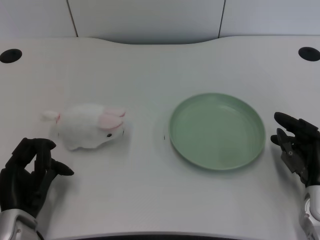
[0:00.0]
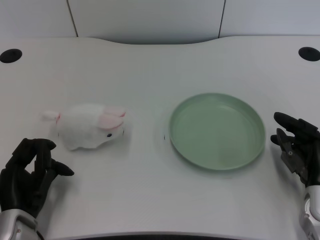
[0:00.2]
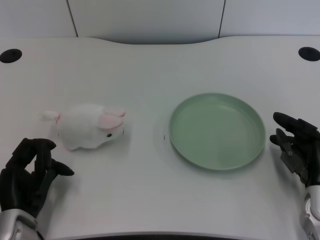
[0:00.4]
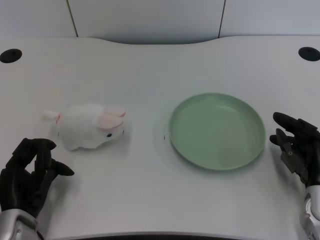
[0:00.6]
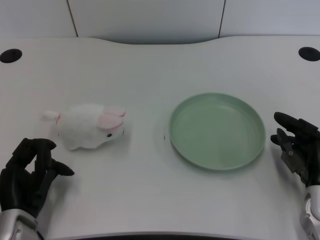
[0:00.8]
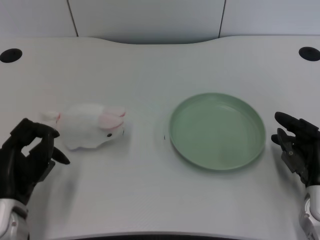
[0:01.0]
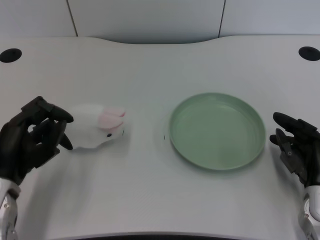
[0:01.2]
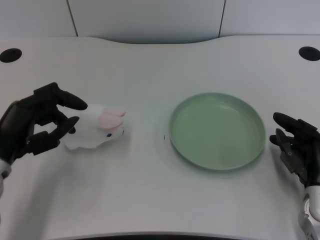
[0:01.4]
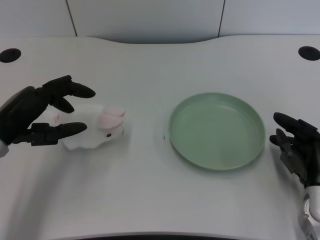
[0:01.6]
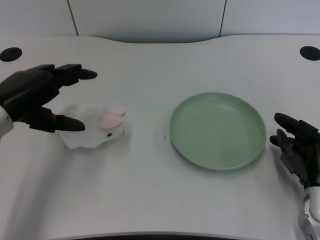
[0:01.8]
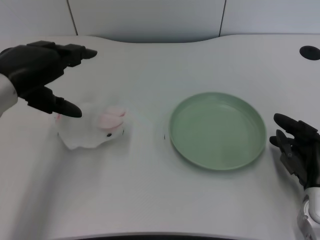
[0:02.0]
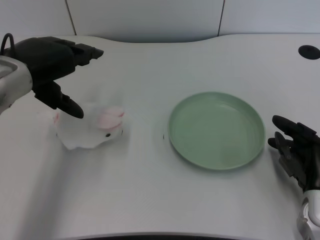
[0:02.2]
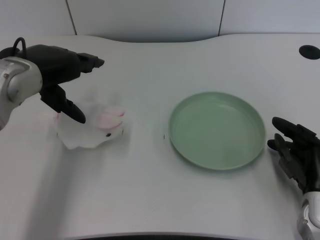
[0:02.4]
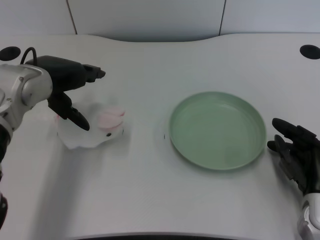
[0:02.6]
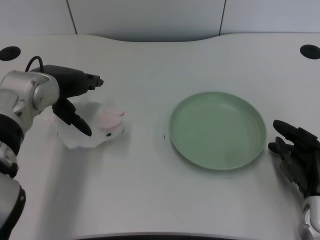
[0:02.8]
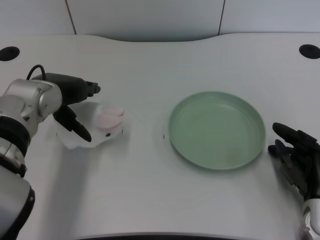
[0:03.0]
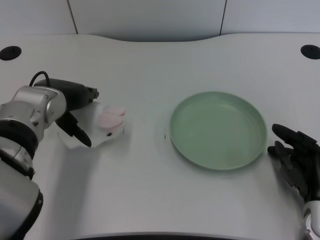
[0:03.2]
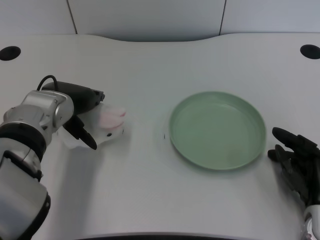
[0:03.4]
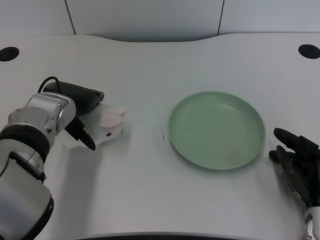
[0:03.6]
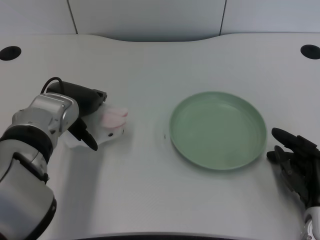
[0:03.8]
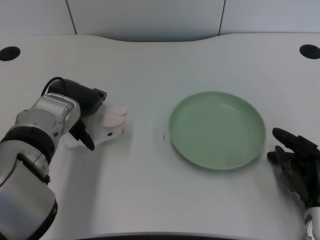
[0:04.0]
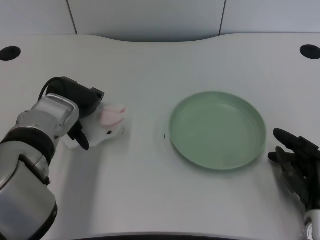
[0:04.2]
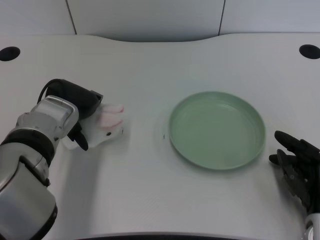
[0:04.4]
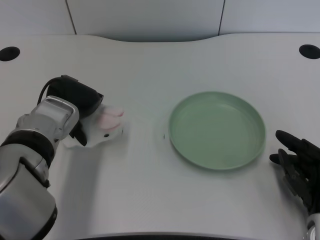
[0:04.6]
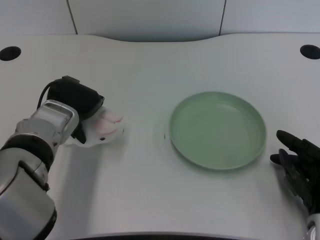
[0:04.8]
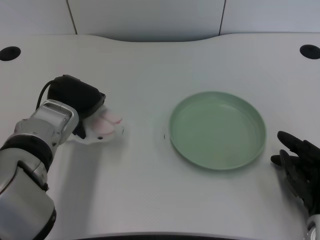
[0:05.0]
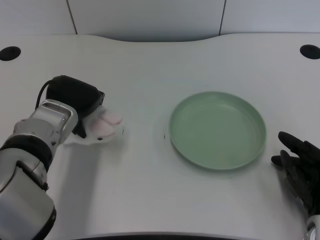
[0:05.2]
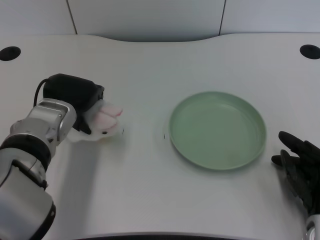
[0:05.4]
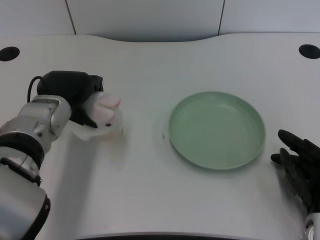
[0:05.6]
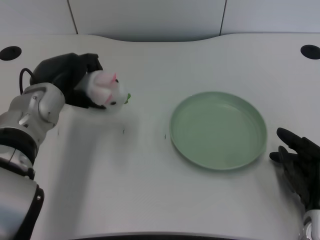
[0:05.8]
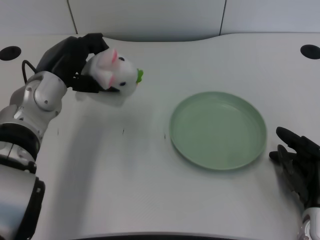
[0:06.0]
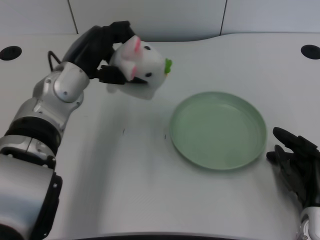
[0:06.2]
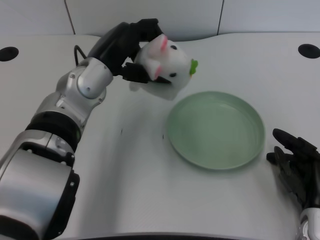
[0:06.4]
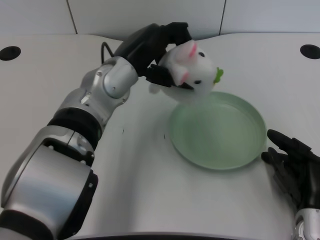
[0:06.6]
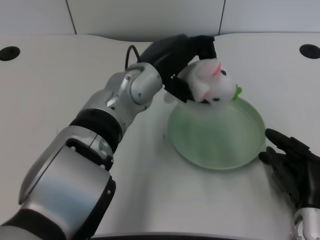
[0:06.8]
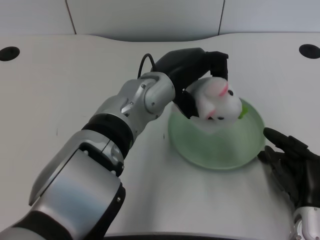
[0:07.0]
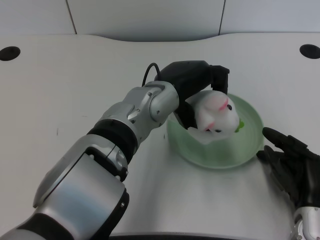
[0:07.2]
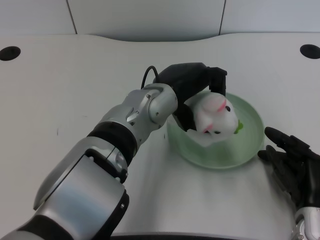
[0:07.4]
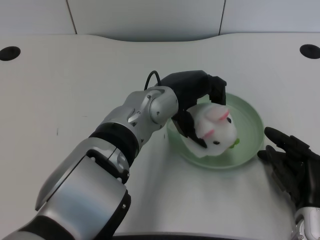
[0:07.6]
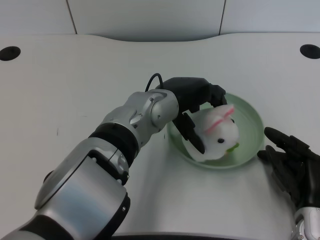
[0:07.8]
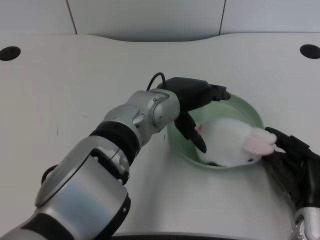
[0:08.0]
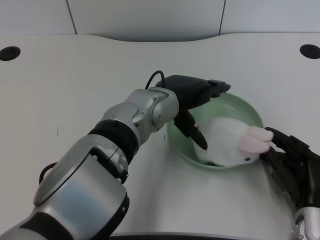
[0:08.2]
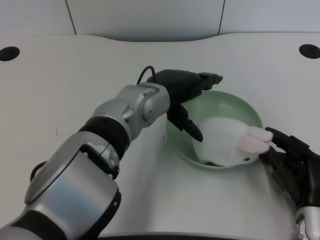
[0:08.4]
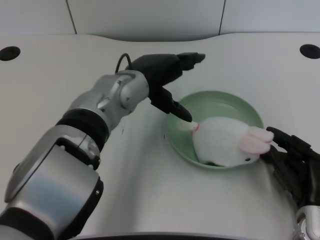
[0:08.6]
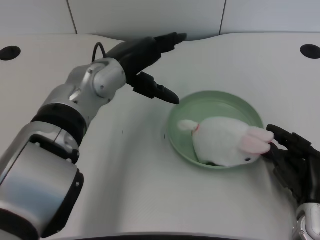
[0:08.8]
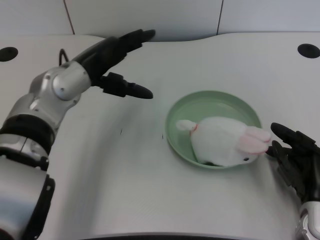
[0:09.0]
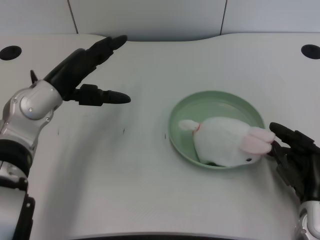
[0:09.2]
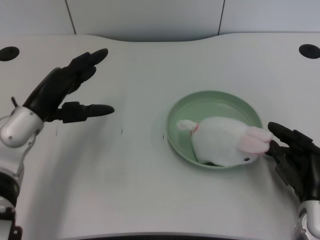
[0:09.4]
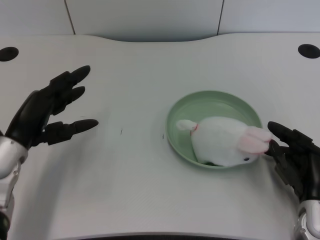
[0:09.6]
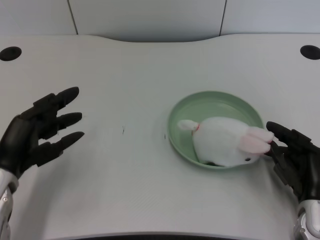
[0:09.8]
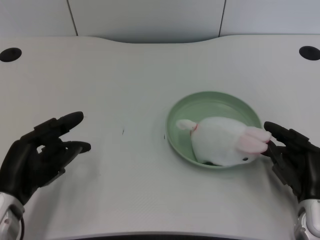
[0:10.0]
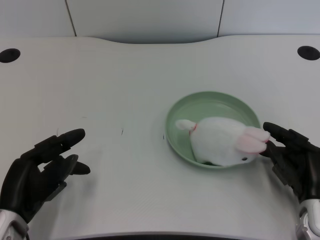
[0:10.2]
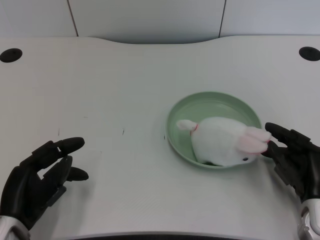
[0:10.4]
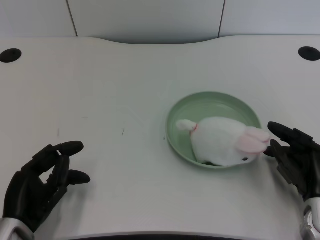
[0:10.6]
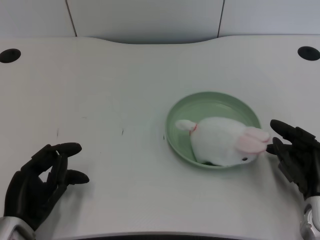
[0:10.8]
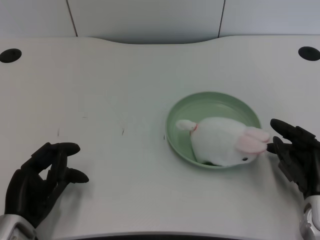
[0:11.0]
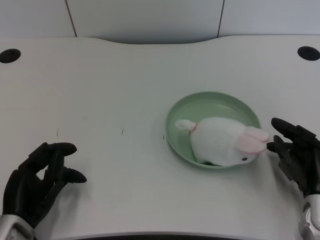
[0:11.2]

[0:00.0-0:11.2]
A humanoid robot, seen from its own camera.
Task of the whole recording: pick up the rabbit doll from the table and place it on the plate.
Step, 0:01.0 to 0:05.6: Grasp the rabbit doll with the left gripper.
Step, 0:06.0 to 0:07.8: Place the rabbit doll into the plate with the left gripper.
0:01.6 to 0:03.2: The left hand heads to the right and forward, covering roughly 10 cm.
0:03.2 to 0:04.8: The hands move only a little.
0:04.8 to 0:06.4: The left hand heads upward and to the right, covering approximately 10 cm.
0:06.4 to 0:08.0: The left hand travels to the right by approximately 10 cm.
0:08.0 to 0:09.6: The left hand heads to the left, covering some 20 cm.
0:09.6 to 0:11.2: The left hand heads backward and downward, covering approximately 10 cm.

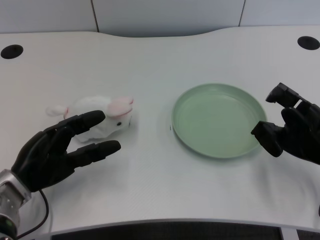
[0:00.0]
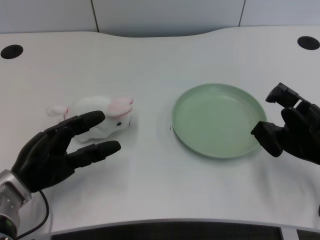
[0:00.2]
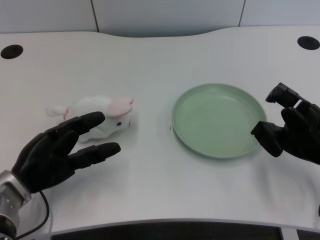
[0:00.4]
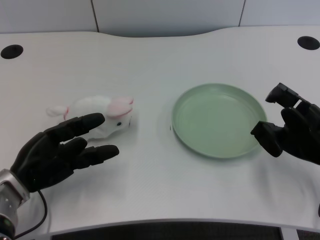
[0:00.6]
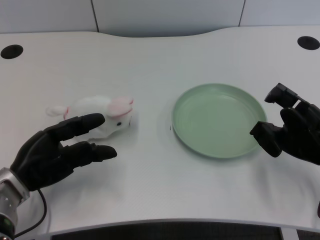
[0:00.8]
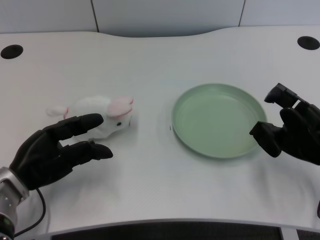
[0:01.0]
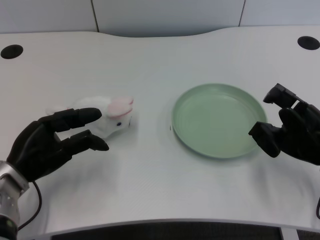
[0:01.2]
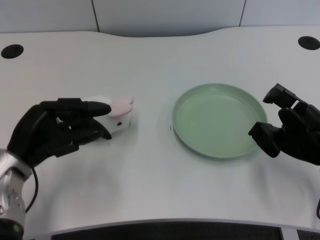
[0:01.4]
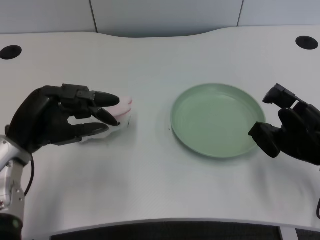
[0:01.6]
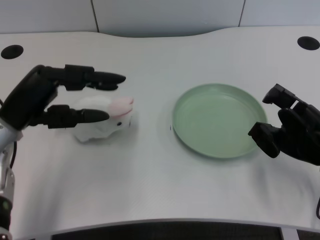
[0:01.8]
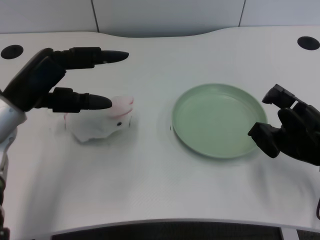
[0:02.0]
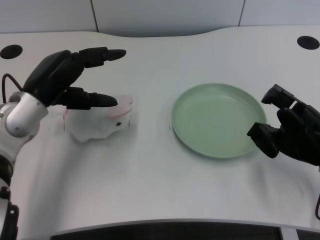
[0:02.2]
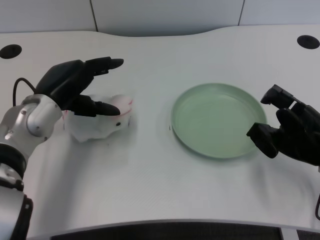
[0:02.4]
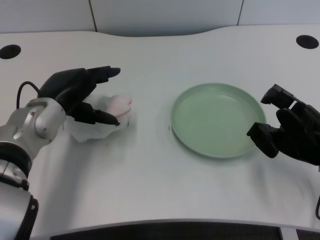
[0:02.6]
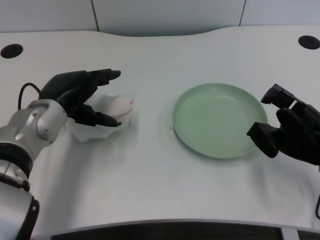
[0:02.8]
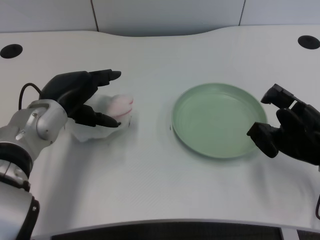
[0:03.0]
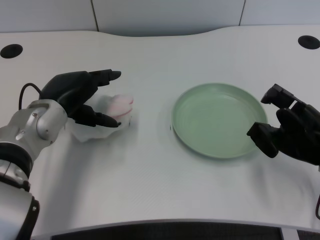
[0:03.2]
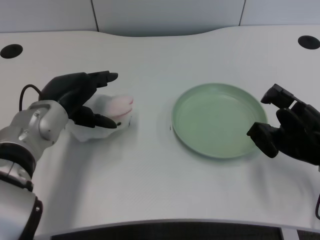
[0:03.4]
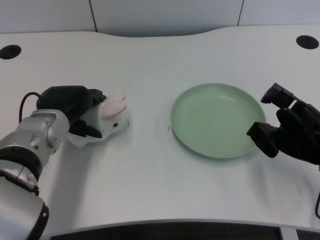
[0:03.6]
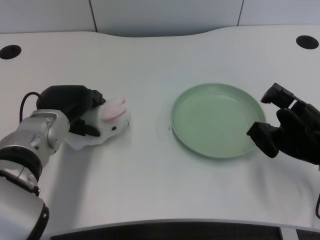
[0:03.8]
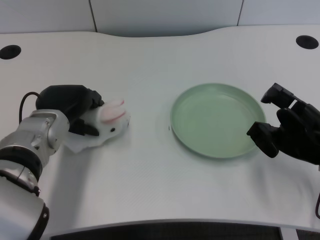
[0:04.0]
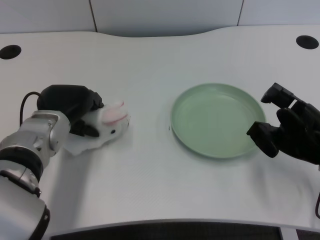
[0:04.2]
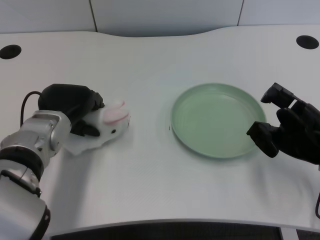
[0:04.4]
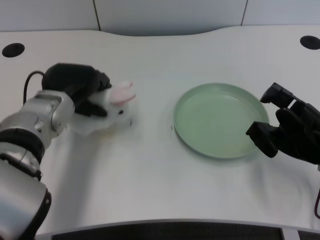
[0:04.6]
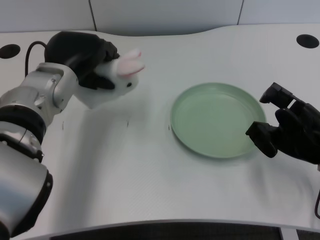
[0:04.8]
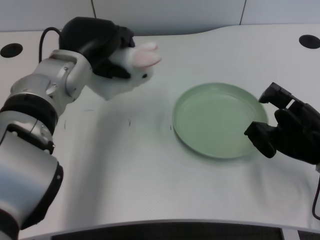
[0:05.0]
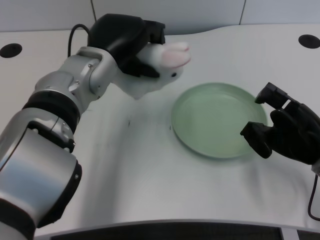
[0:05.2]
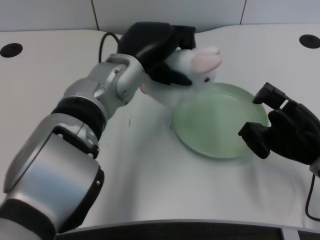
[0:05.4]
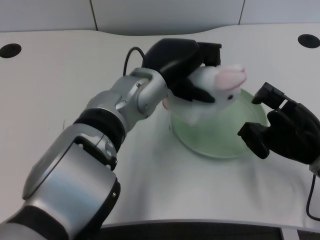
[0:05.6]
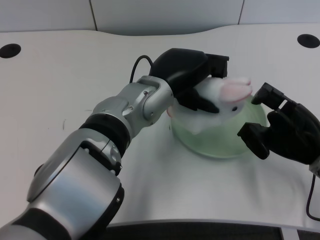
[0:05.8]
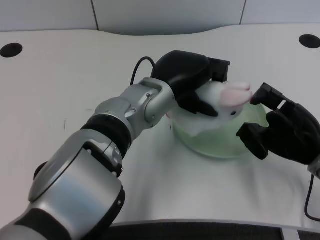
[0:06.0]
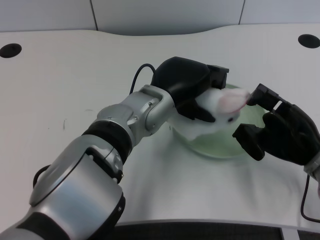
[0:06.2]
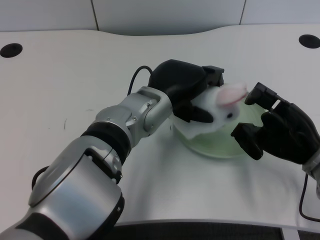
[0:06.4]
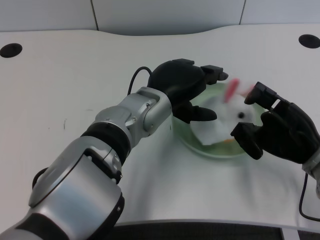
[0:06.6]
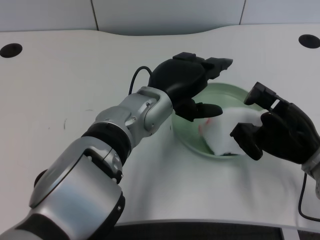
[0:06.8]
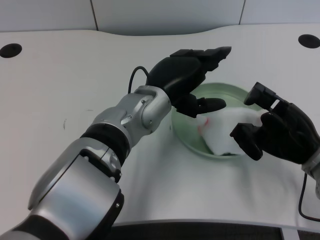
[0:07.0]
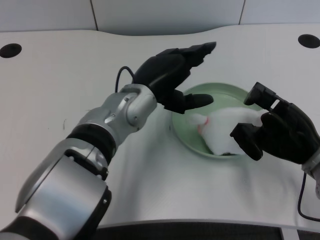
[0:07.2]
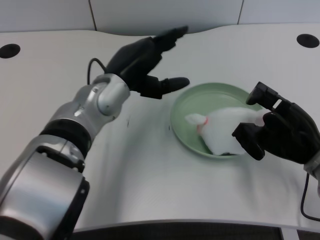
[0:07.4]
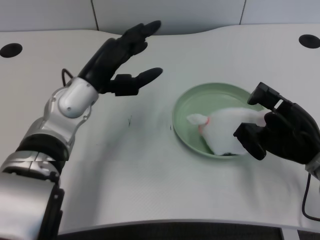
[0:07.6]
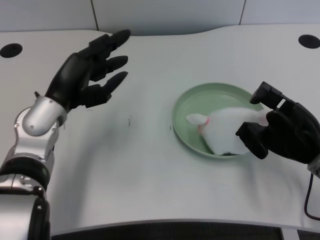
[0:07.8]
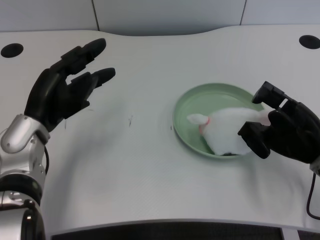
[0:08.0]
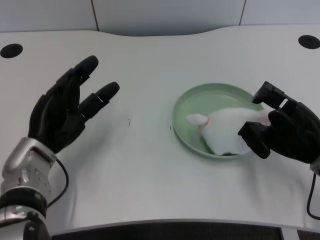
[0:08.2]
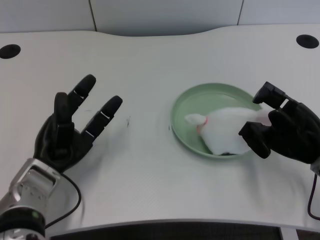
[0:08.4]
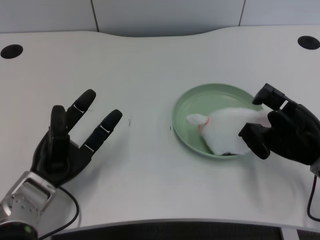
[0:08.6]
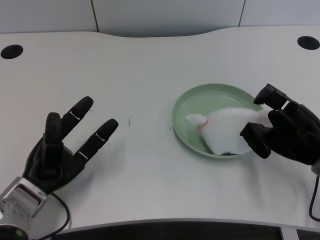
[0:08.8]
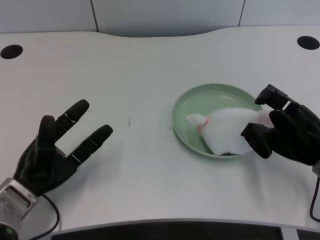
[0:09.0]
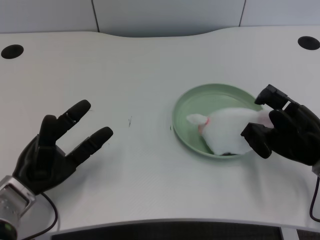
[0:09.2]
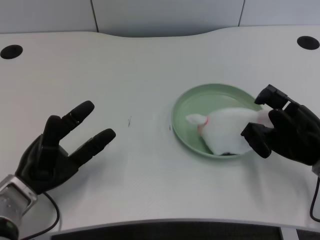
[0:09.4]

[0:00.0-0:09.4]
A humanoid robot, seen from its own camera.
Task of the whole recording: pick up the rabbit doll from the table and place it on the plate.
Step, 0:00.8 to 0:04.6: Grasp the rabbit doll with the left gripper.
Step, 0:04.8 to 0:06.8: Place the rabbit doll into the plate with the left gripper.
0:01.6 to 0:03.2: The left hand goes approximately 10 cm to the right and forward.
0:03.2 to 0:04.8: The left hand ends up approximately 5 cm from where it was.
0:04.8 to 0:06.2: The left hand heads to the right, covering roughly 15 cm.
0:06.2 to 0:07.8: The left hand travels to the left by roughly 15 cm.
0:07.8 to 0:09.4: The left hand shifts some 15 cm downward, backward and to the left.

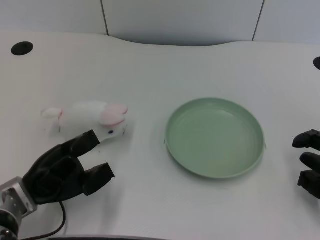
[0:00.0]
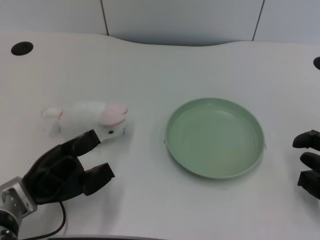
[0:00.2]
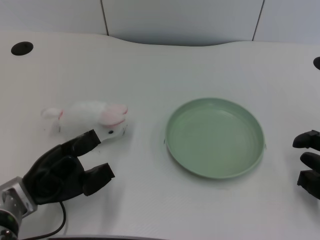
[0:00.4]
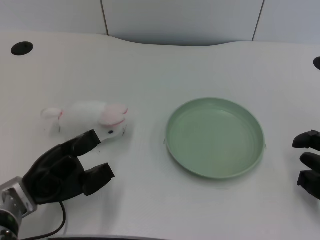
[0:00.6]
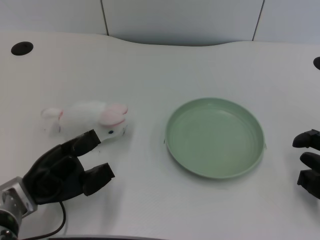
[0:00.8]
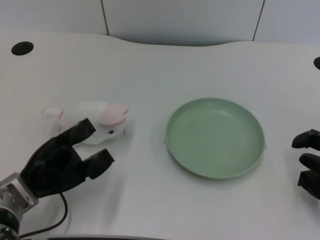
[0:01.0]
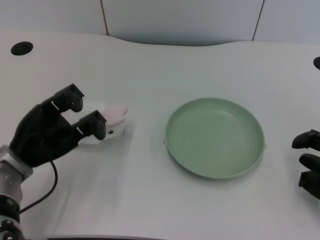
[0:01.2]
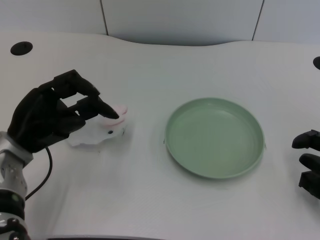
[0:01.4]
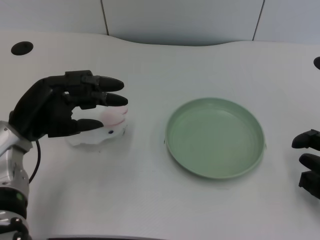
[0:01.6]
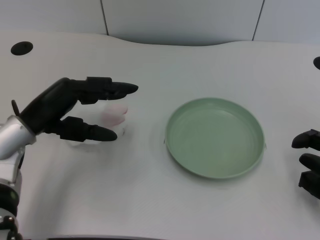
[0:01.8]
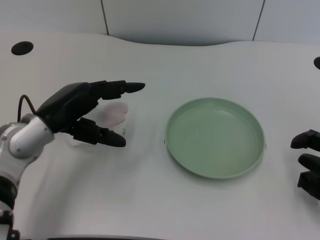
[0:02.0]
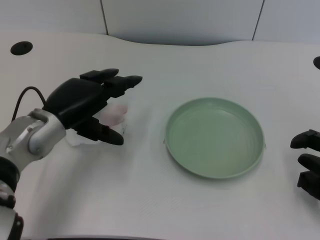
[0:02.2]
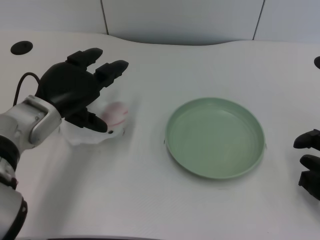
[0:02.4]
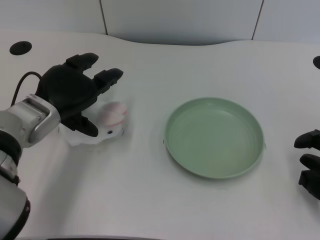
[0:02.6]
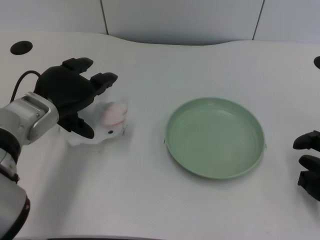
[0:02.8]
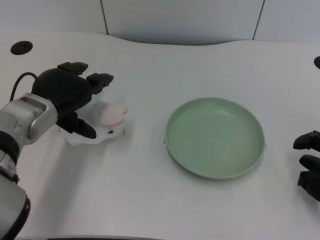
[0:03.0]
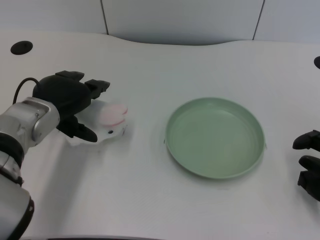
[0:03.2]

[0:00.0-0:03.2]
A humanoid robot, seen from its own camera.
Task of the whole recording: pick up the rabbit doll from the table and place it on the plate.
0:01.6 to 0:03.2: The left hand changes place by some 5 cm.
